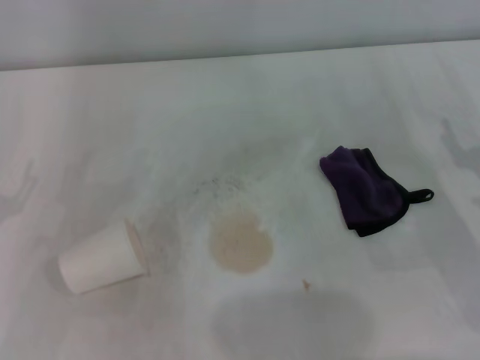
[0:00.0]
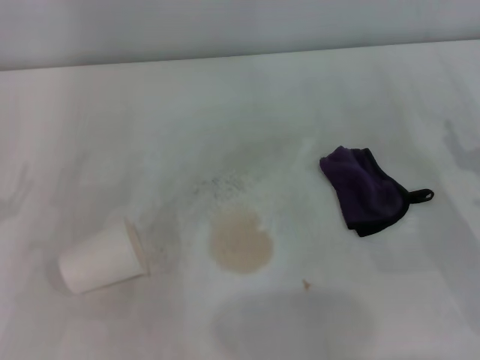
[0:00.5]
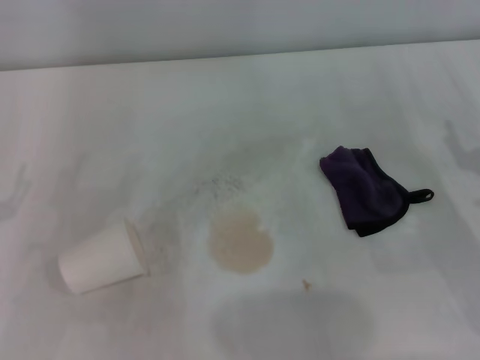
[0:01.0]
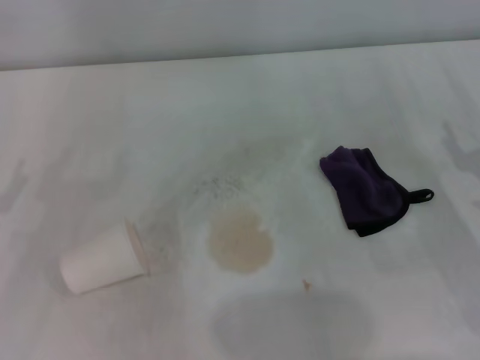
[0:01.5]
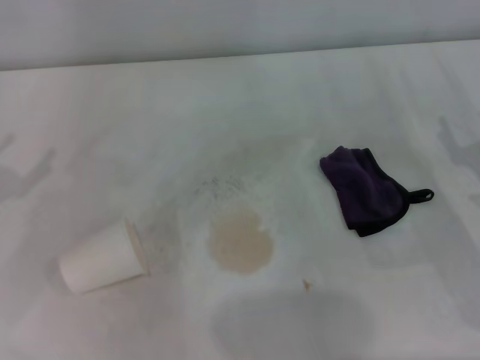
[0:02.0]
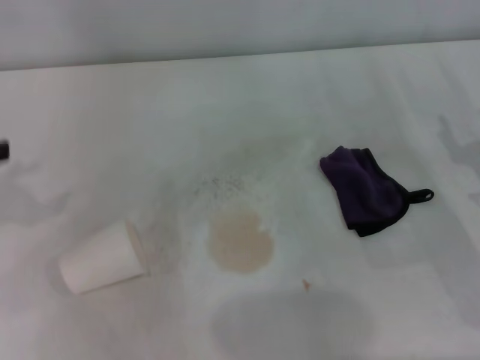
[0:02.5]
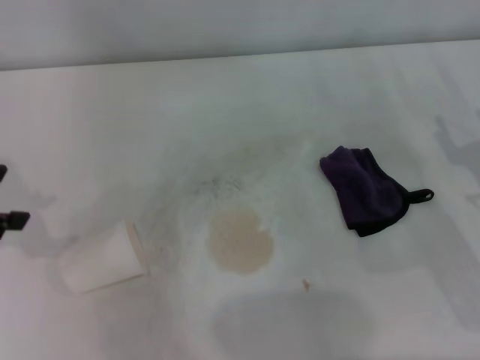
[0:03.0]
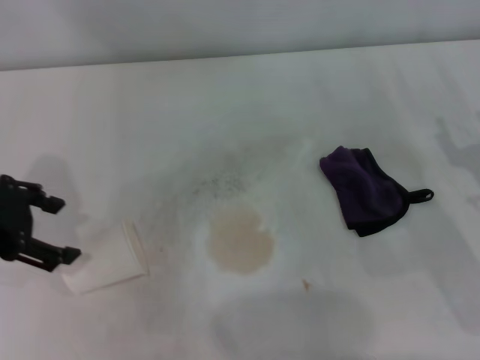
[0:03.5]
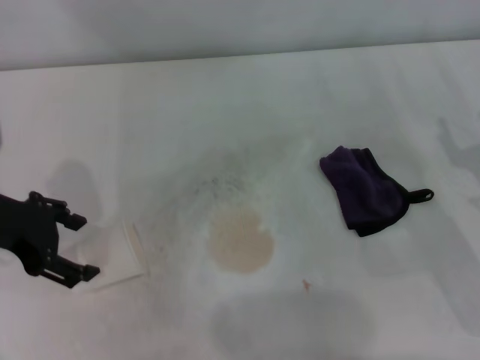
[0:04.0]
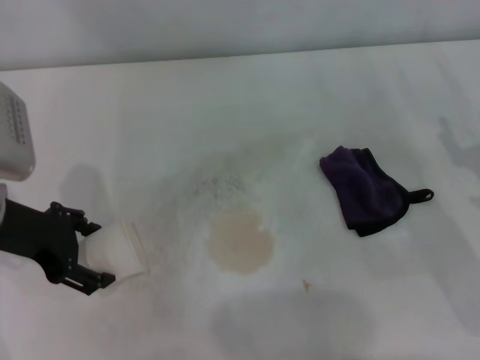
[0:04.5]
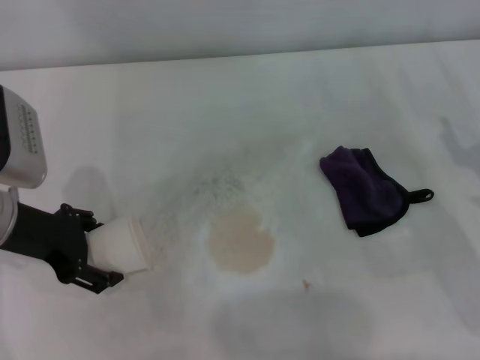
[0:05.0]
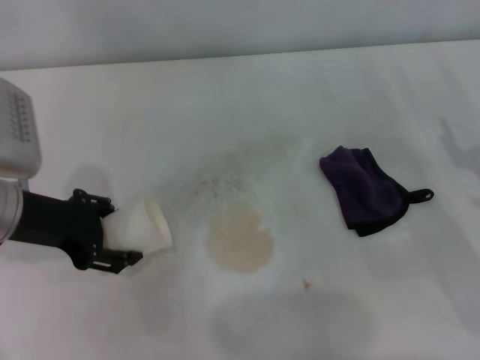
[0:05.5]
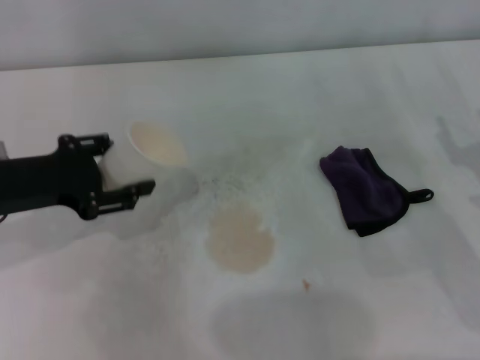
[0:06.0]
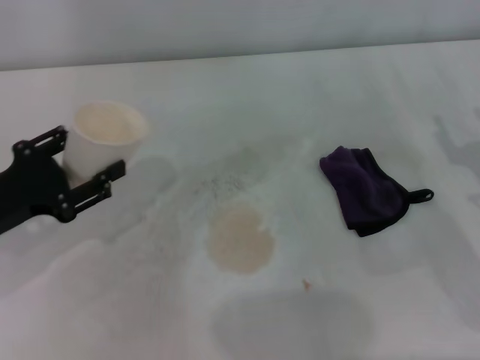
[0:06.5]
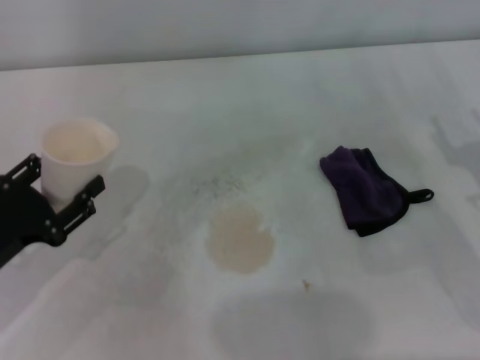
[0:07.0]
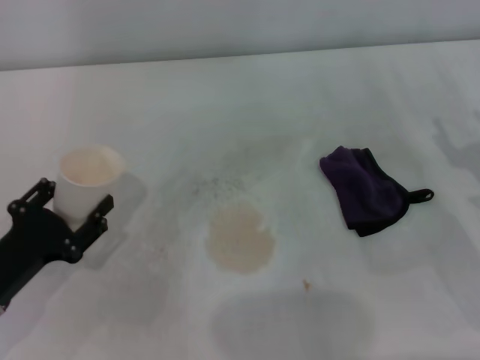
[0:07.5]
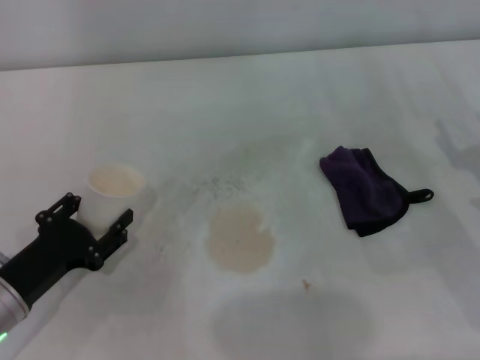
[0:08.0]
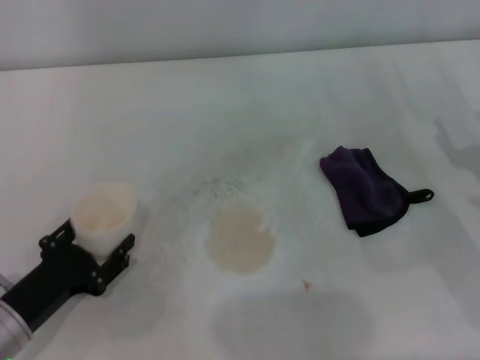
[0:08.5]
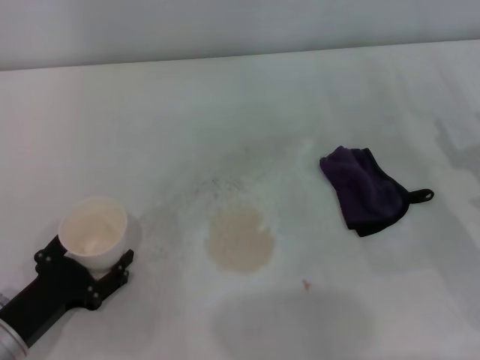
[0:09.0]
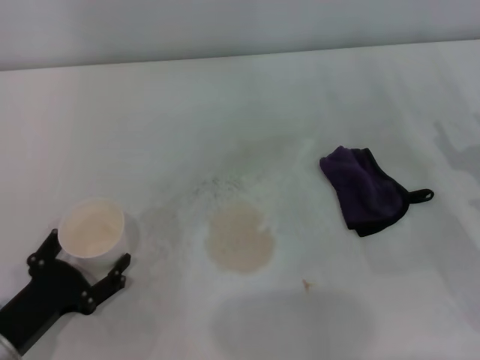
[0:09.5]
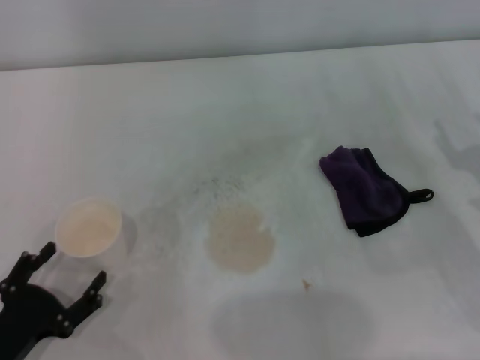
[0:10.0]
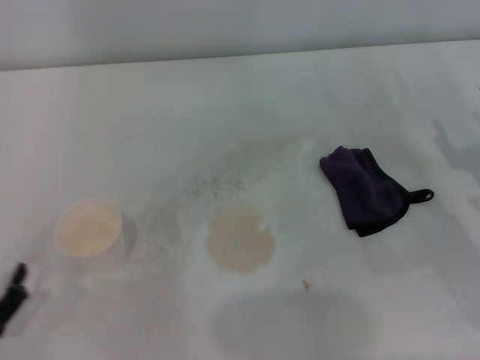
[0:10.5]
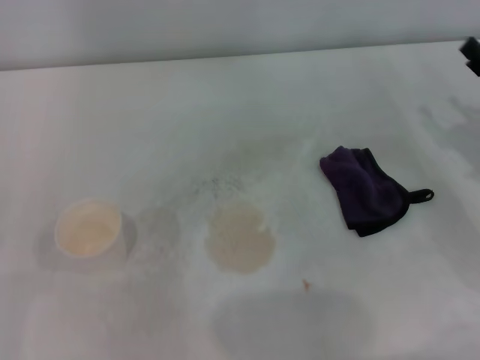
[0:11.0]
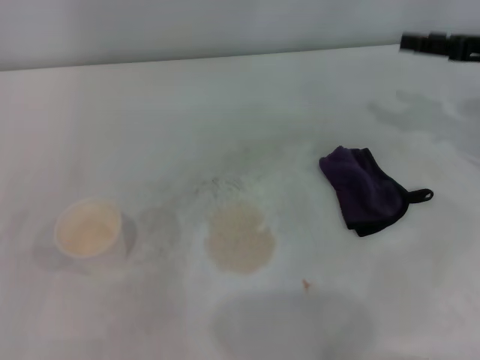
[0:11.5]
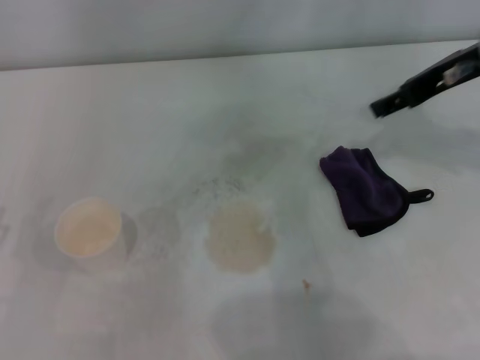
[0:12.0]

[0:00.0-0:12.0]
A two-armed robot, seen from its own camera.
Step, 0:00.0 to 0:05.0: Grasp the paper cup with the left gripper.
Step, 0:05.5 to 0:09.0: Stand the paper cup upright with the left gripper.
0:02.0 to 0:04.0: The left gripper moves to the right and upward, some 10 cm.
0:04.0 to 0:06.0: The left gripper closes its fingers.
0:06.0 to 0:08.0: The left gripper shifts roughly 15 cm downward and backward.
0:08.0 to 0:10.0: The left gripper shifts about 10 cm backward, and opens.
0:10.0 to 0:12.0: The left gripper travels to the left by about 5 cm. The right gripper travels upward, forward and to the left by about 25 cm.

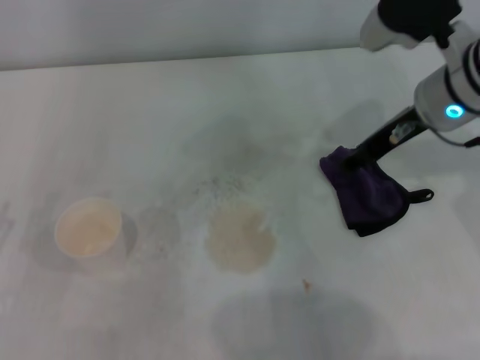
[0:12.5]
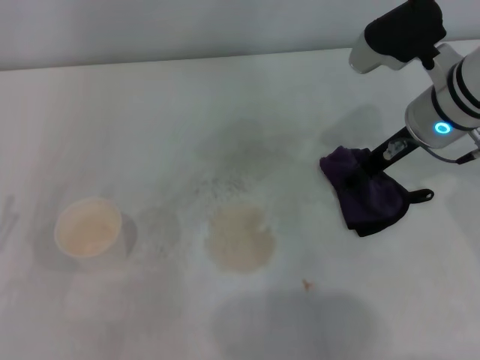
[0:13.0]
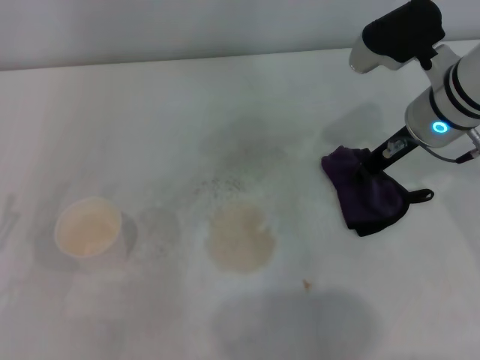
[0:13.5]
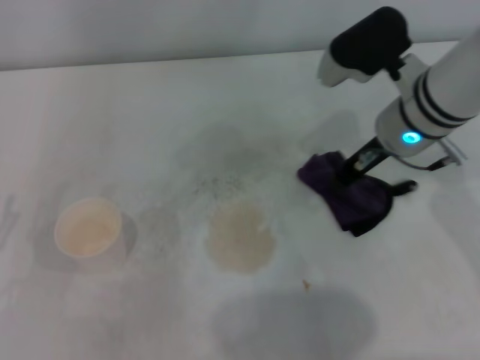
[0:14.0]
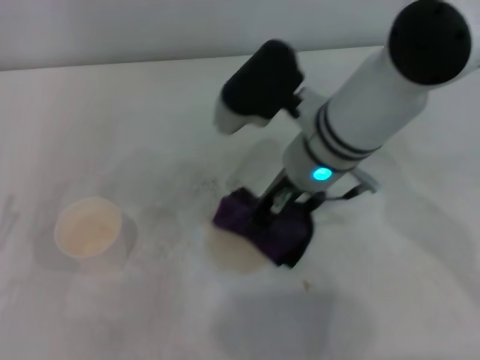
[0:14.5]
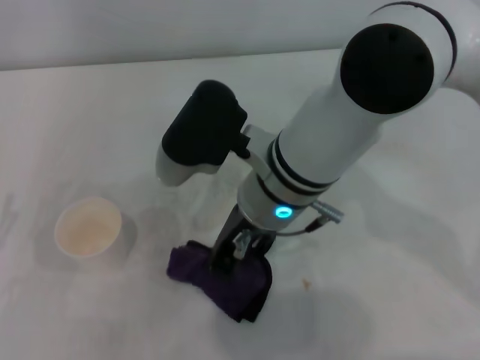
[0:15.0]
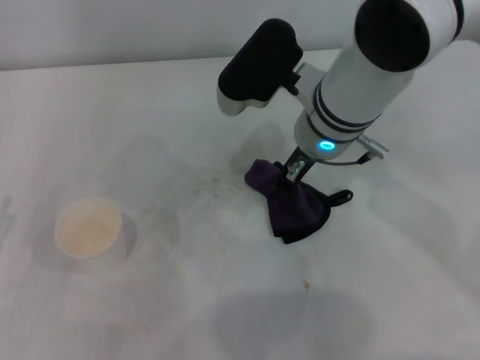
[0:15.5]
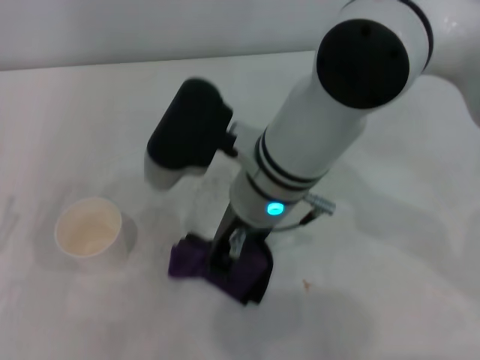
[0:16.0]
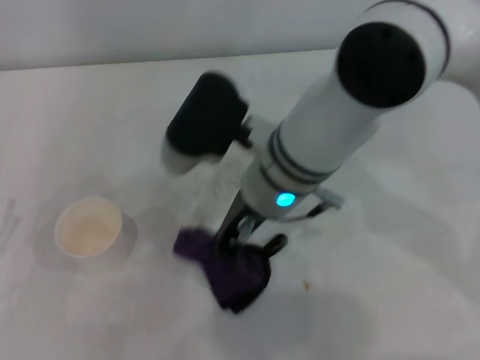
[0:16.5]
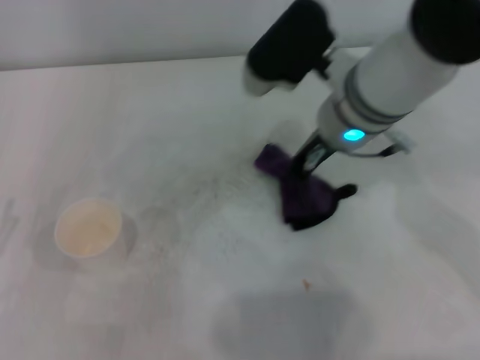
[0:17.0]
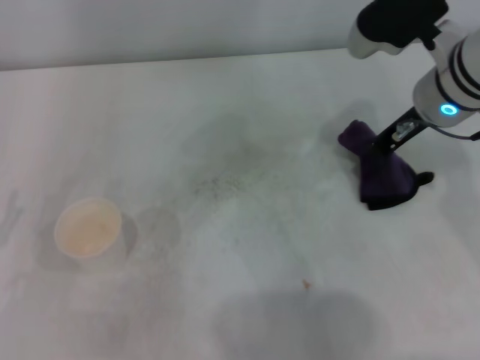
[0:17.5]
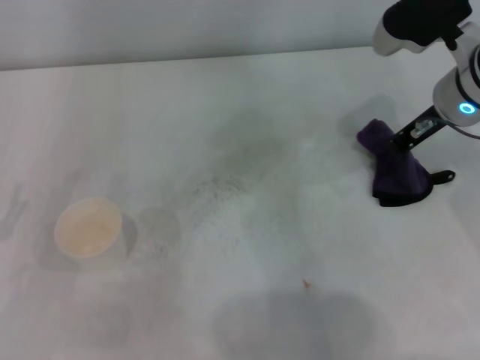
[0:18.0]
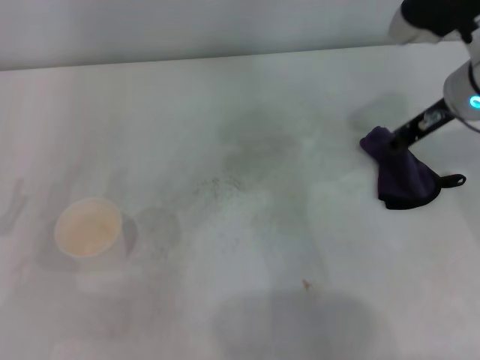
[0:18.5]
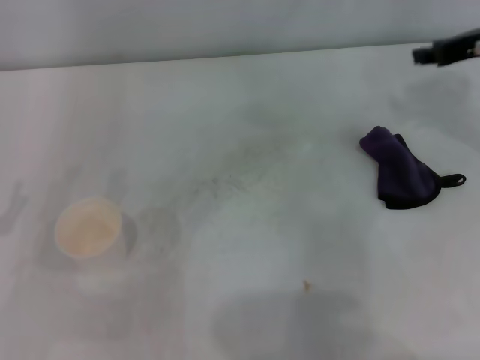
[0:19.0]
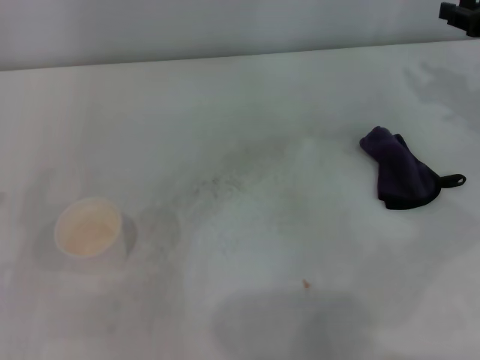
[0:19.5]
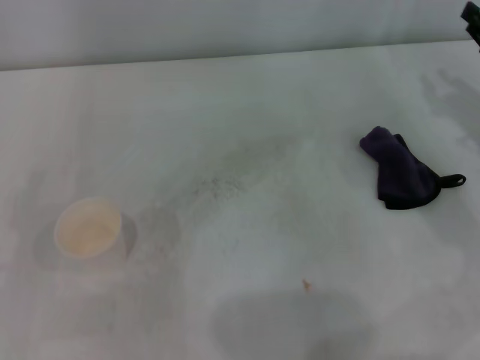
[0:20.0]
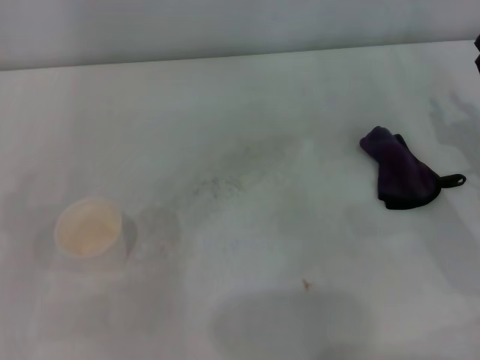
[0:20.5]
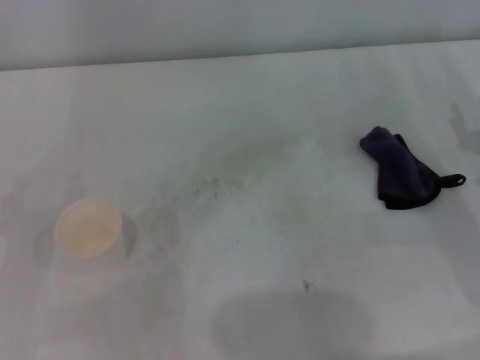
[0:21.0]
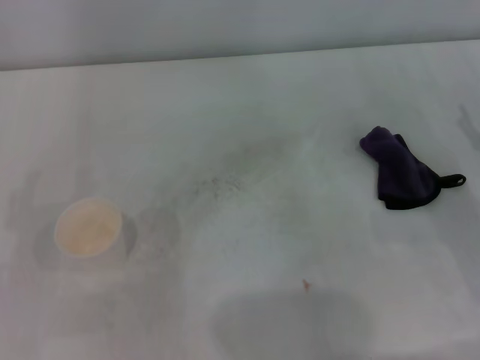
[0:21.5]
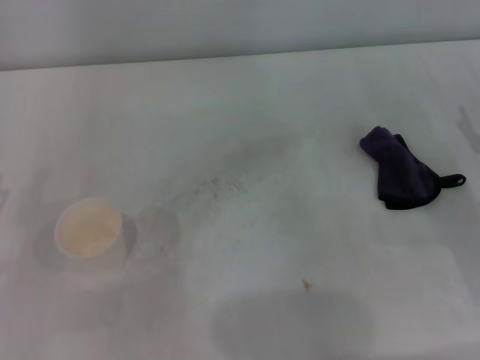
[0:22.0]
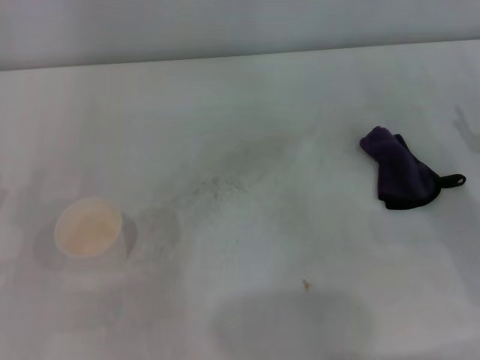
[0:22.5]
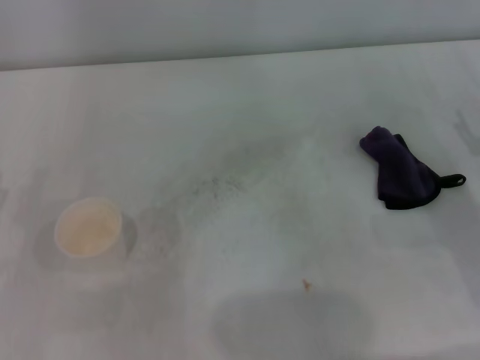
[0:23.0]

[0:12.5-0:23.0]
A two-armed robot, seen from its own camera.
Step, 0:14.0 to 0:17.0: Wipe the stains off the table with the right gripper.
Step, 0:17.5 to 0:18.0: Place the rag on the table with the right gripper.
0:12.5 to 0:14.5: The right gripper goes roughly 15 cm to the left, and closes its fingers.
0:14.5 to 0:16.5: The right gripper moves left and right over approximately 5 cm, changing direction 2 times.
0:16.5 to 0:19.0: The right gripper heads to the right, covering approximately 25 cm.
0:19.0 to 0:21.0: The right gripper moves downward and backward, roughly 20 cm.

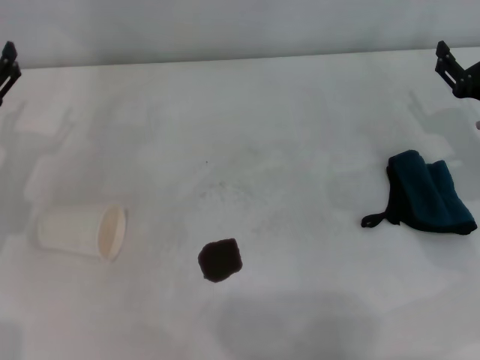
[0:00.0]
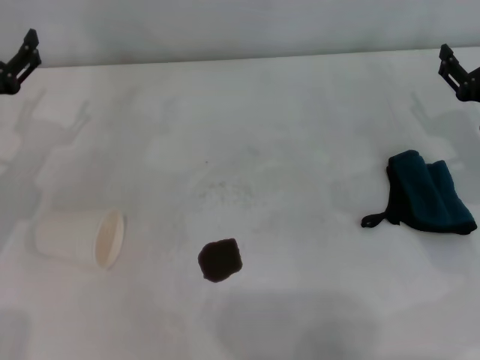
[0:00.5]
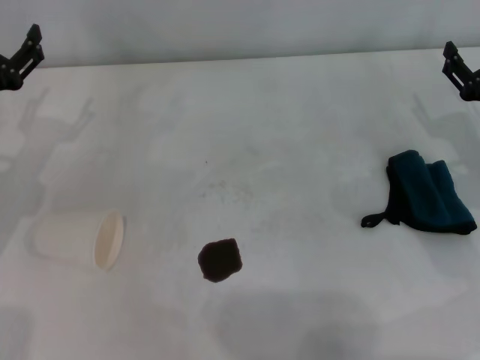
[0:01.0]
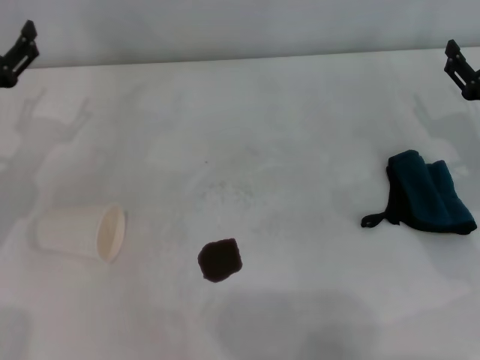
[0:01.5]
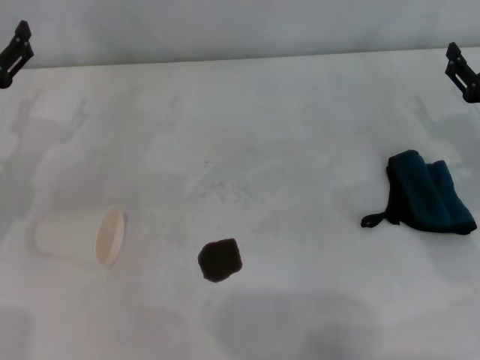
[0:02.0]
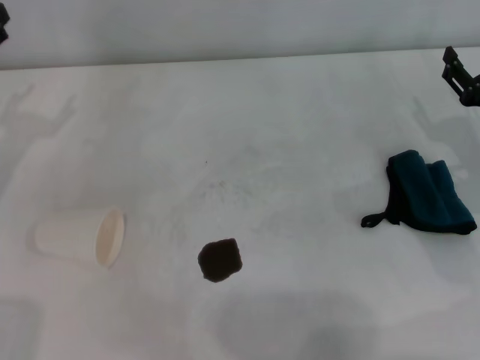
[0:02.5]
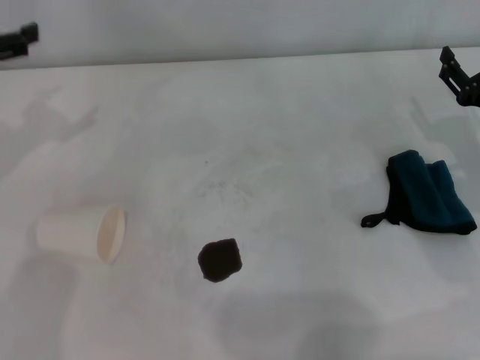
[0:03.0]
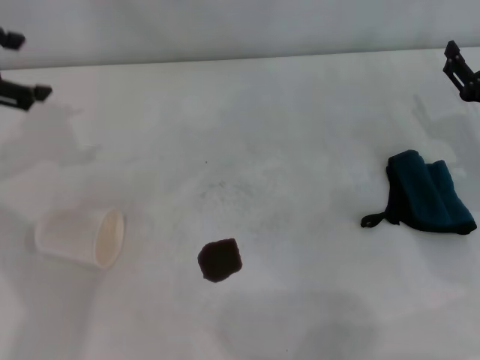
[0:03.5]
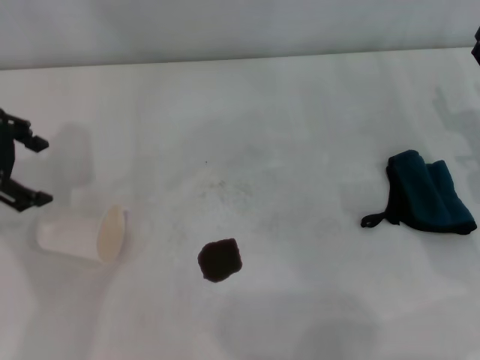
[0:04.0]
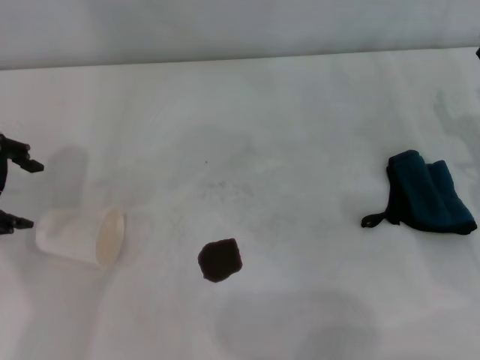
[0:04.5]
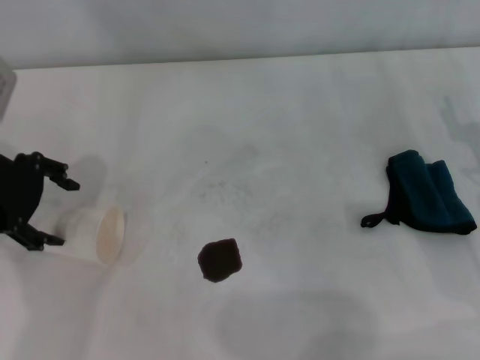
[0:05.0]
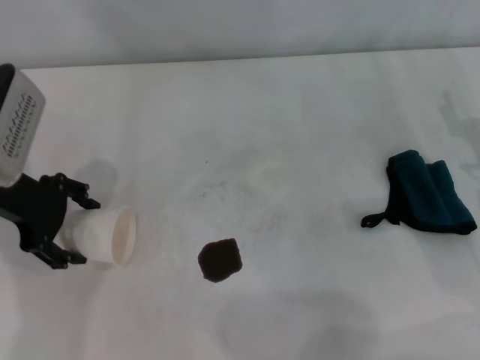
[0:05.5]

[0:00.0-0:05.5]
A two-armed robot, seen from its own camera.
Step, 0:00.0 to 0:05.0: Grasp the paper cup with the left gripper.
0:00.0 to 0:02.0: The grippers make only small movements.
0:02.0 to 0:03.5: The left gripper travels upward by approximately 15 cm.
0:03.5 to 0:05.5: The left gripper goes approximately 10 cm downward.
